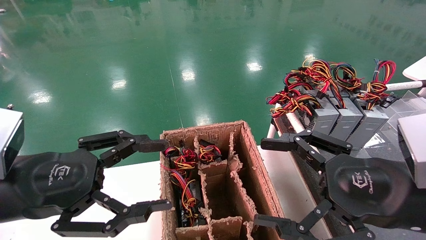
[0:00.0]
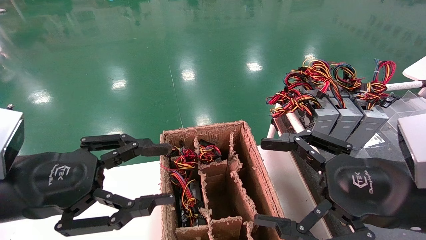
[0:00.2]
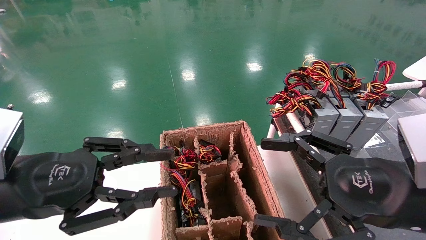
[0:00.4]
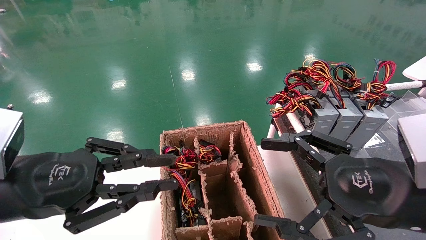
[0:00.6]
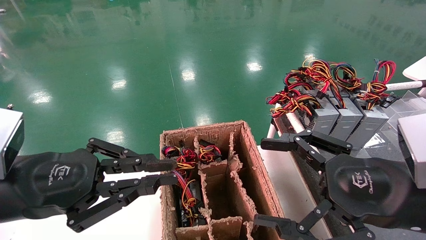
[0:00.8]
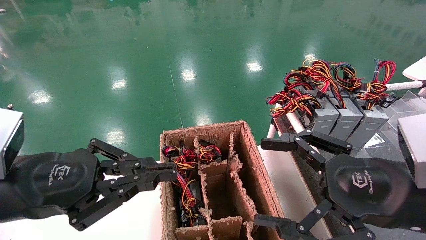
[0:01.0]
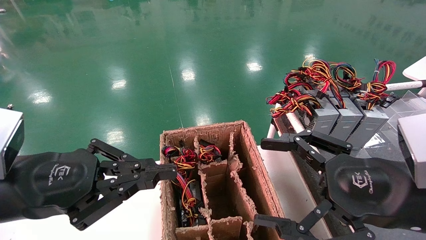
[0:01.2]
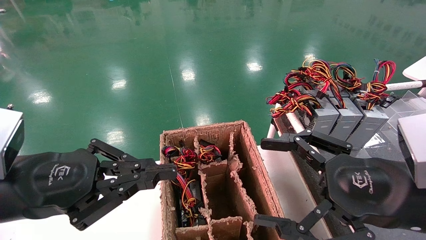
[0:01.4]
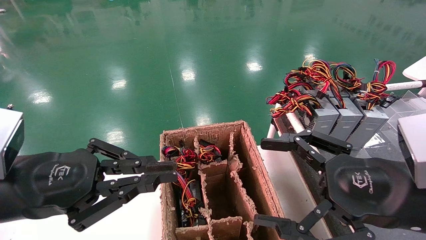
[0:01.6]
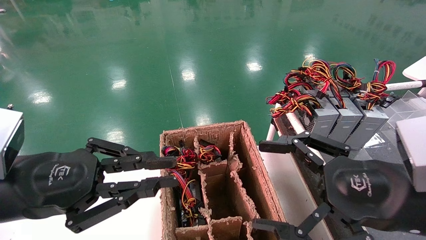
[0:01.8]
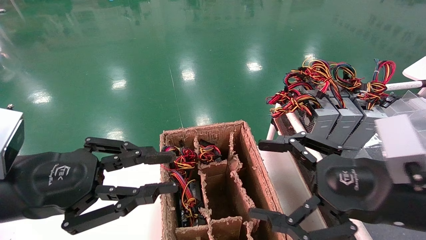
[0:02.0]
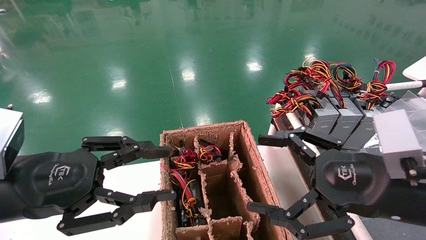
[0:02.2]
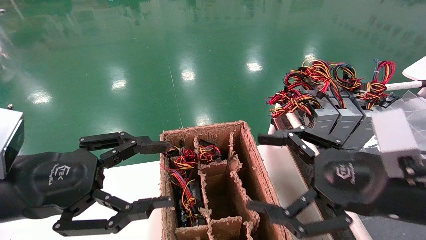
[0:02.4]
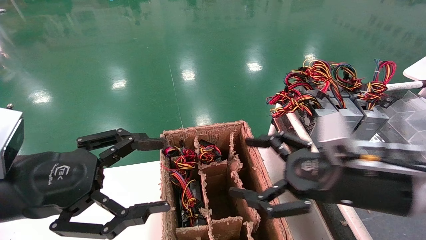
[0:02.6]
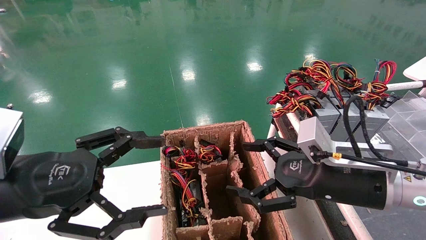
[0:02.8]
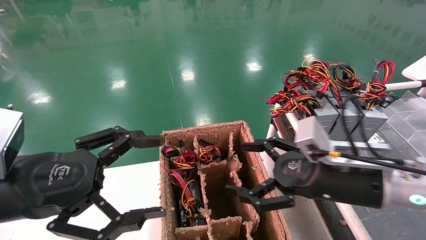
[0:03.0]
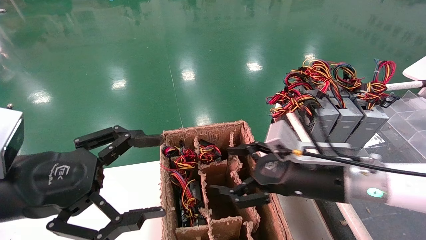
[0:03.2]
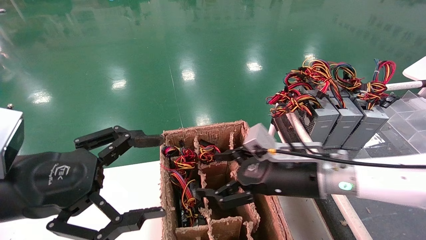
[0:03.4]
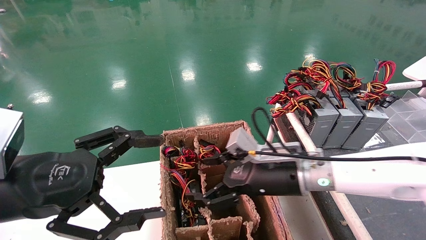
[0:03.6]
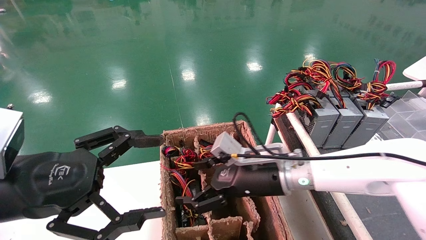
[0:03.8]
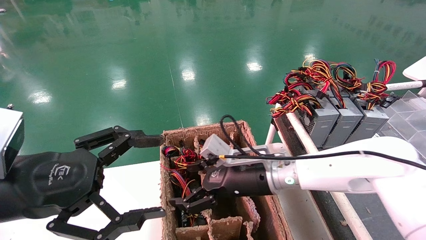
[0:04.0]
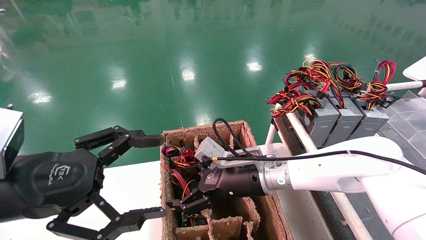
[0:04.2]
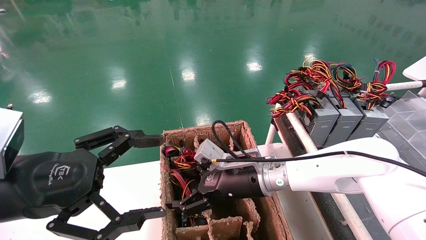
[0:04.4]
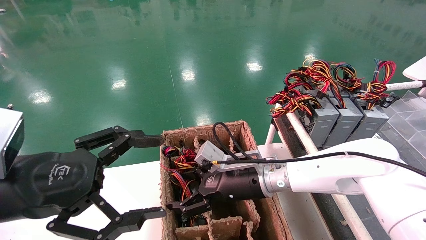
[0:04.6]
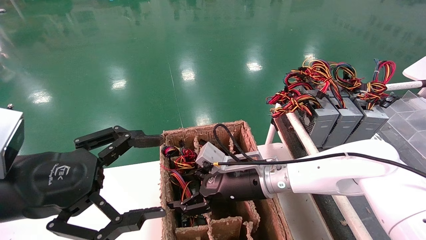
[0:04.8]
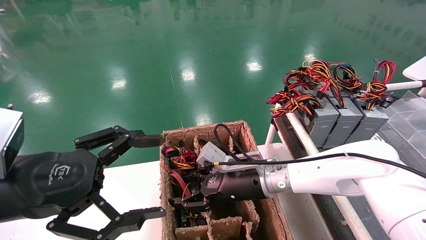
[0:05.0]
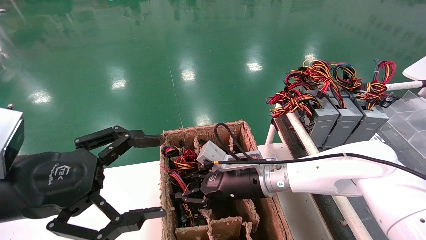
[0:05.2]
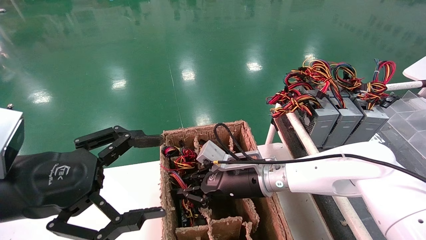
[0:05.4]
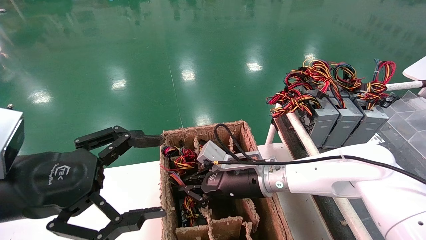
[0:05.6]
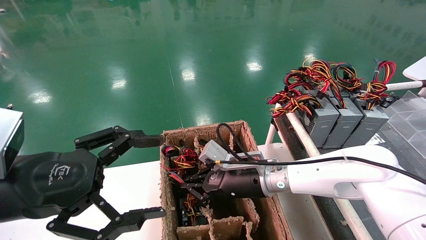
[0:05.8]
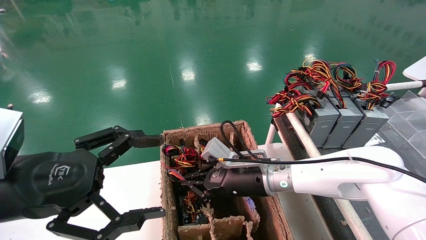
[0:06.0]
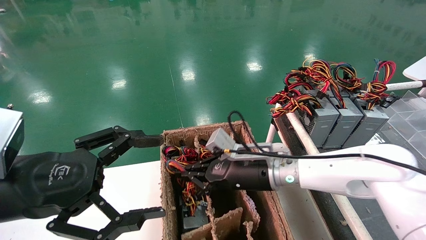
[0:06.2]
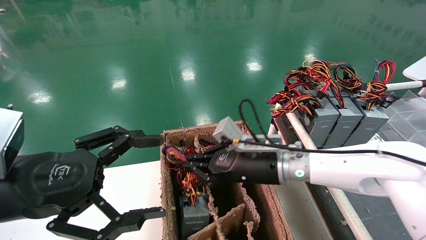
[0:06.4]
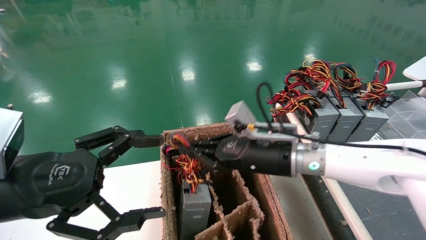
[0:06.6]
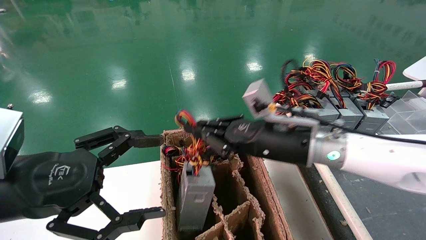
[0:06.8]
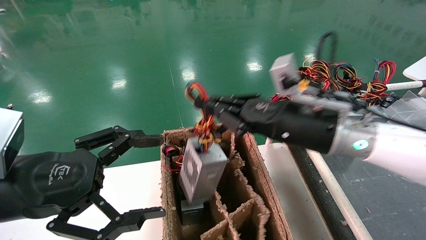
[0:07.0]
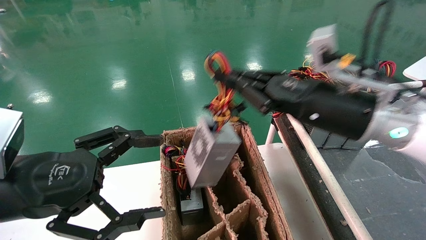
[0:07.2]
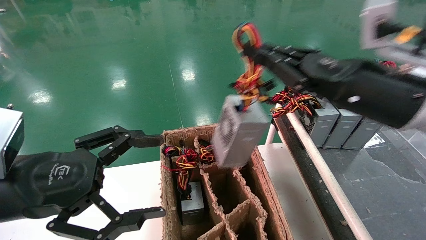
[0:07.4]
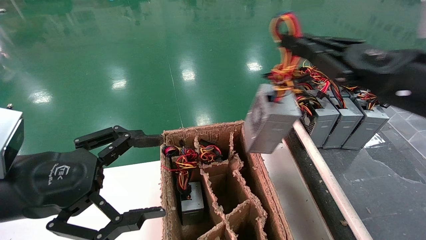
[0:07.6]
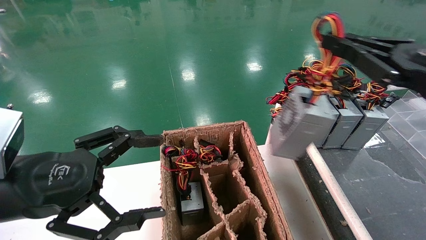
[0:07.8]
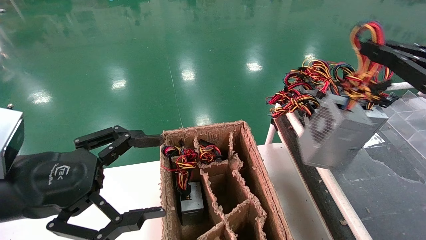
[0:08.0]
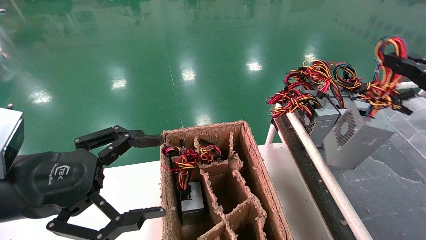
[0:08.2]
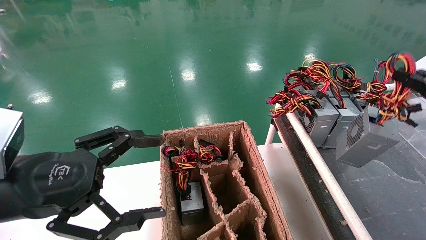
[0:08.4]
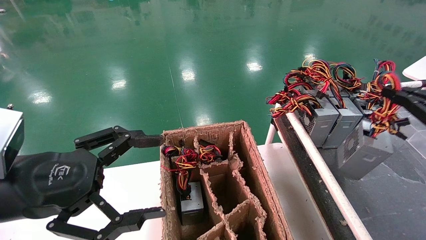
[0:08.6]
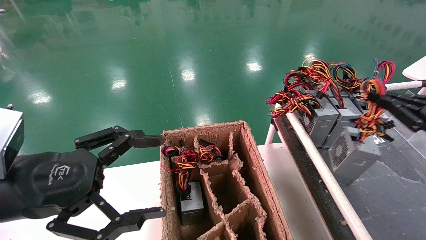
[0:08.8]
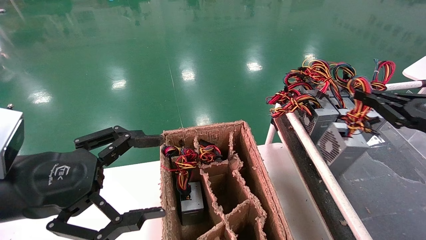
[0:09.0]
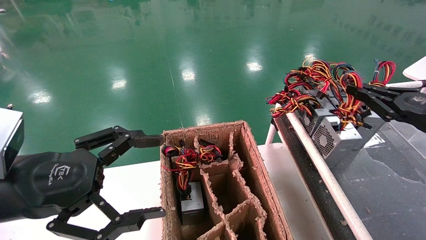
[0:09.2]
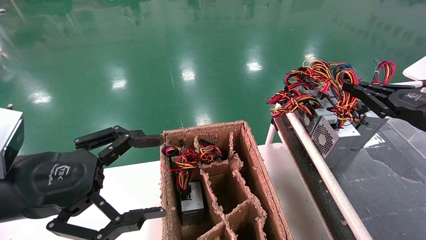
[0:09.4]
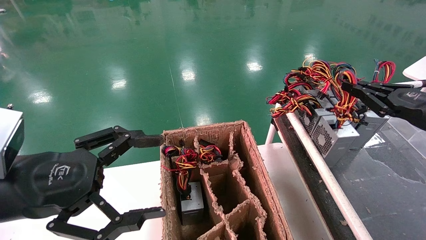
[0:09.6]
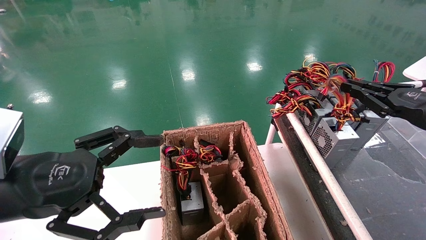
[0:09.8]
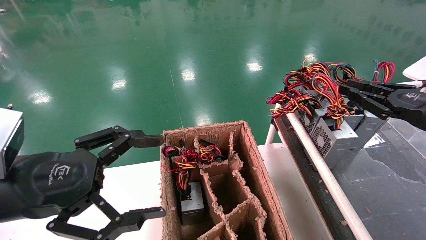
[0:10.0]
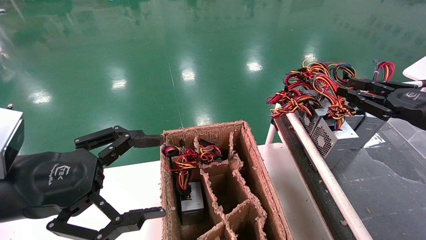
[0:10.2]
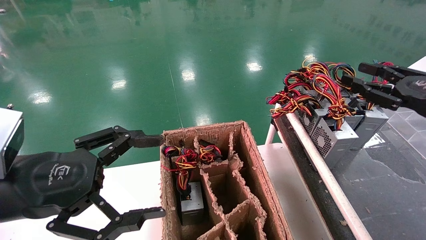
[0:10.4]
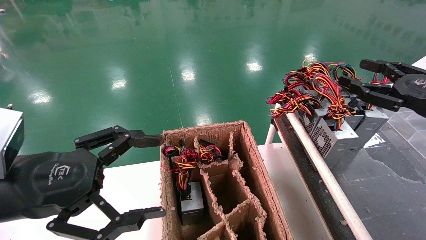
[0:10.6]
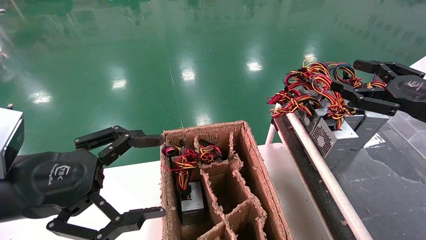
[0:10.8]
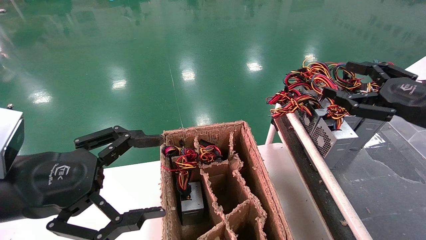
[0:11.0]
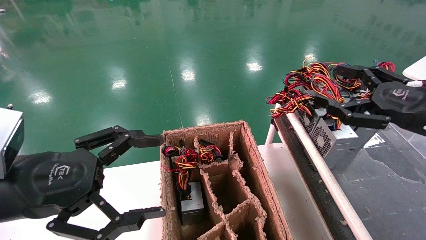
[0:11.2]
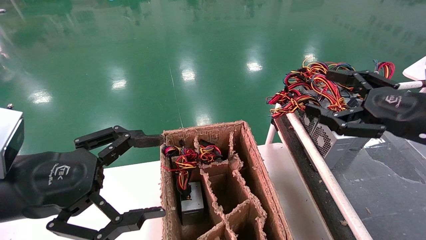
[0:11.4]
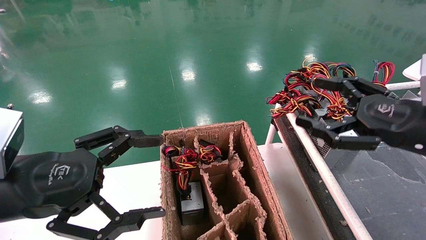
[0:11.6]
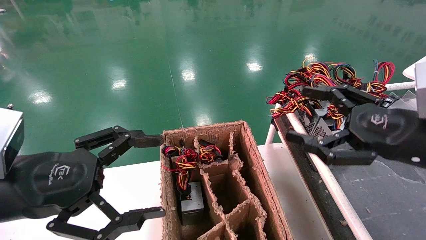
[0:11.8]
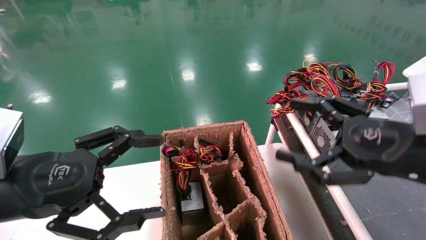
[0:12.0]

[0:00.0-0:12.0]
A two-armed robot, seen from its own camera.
Step, 0:01.0 to 0:05.6: Grab and lift the power supply from the large box.
Step, 0:05.8 to 0:09.6: Place the power supply on the operating table.
0:00.0 to 0:01.6: The left gripper closes up.
0:01.6 to 0:03.0: The right gripper goes about 10 cm forward, while the left gripper opens its fingers.
0:03.0 to 0:04.4: The right gripper moves to the left, forward and downward, some 15 cm.
0:04.4 to 0:06.0: The right gripper closes its fingers.
0:06.0 to 0:07.6: The right gripper shifts approximately 30 cm to the right, upward and backward.
0:07.6 to 0:09.0: The right gripper travels to the right and downward by some 15 cm.
0:09.0 to 0:10.4: The right gripper opens.
0:10.4 to 0:12.0: The right gripper is displaced to the left and backward by some 15 cm, and opens its fingers.
